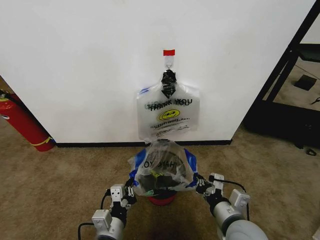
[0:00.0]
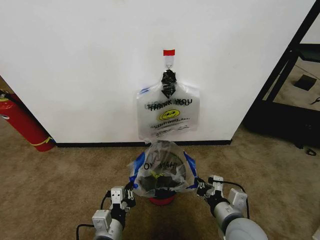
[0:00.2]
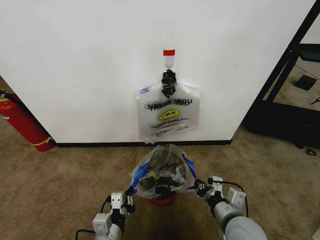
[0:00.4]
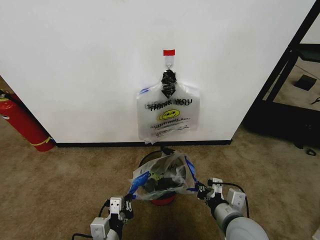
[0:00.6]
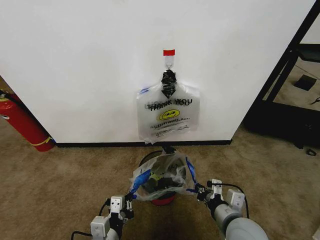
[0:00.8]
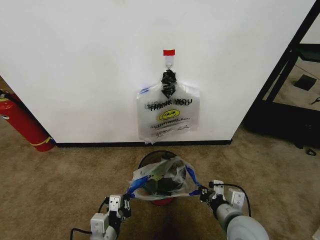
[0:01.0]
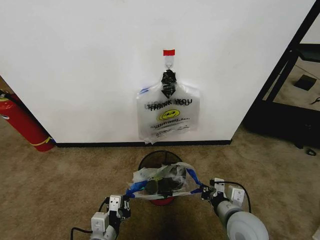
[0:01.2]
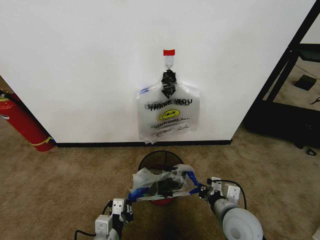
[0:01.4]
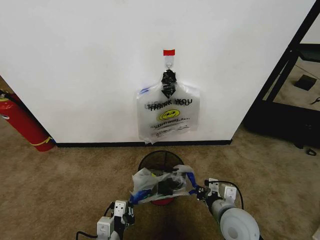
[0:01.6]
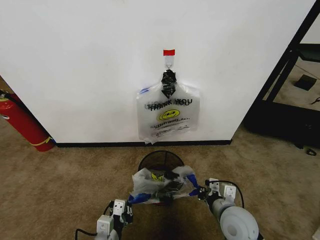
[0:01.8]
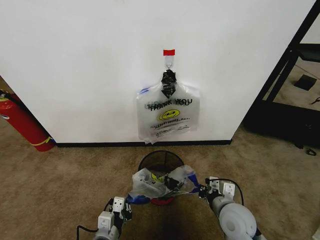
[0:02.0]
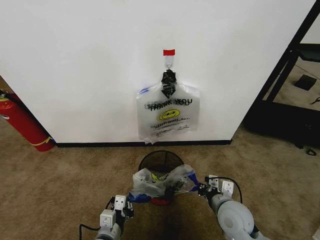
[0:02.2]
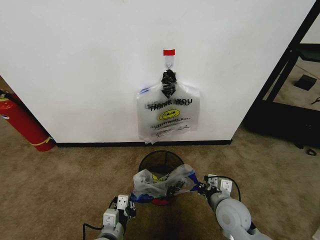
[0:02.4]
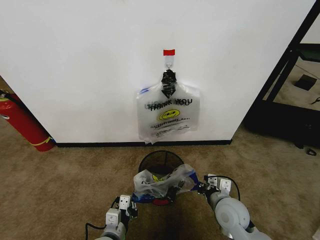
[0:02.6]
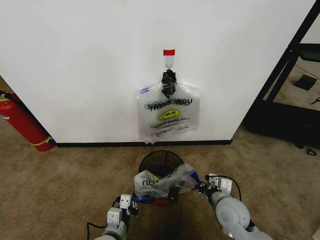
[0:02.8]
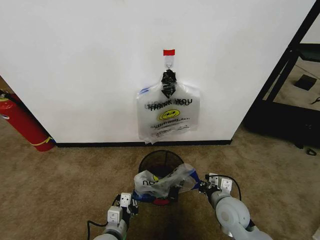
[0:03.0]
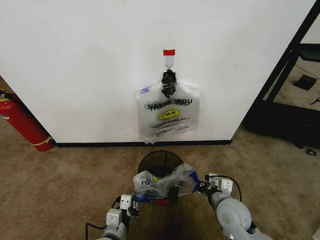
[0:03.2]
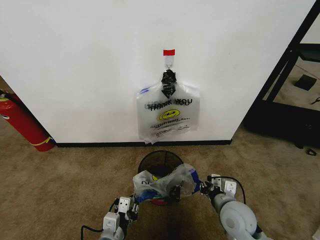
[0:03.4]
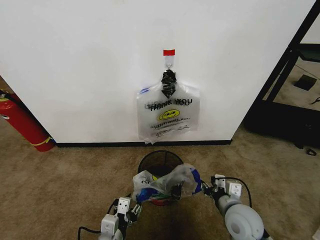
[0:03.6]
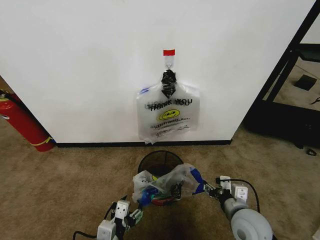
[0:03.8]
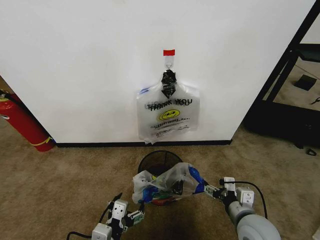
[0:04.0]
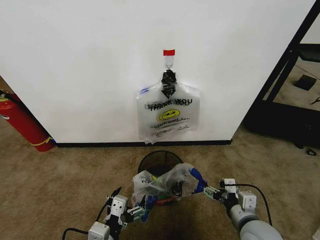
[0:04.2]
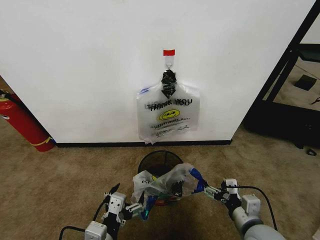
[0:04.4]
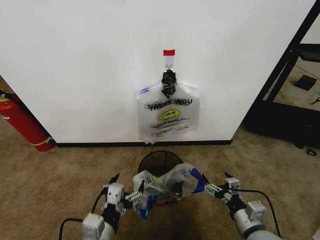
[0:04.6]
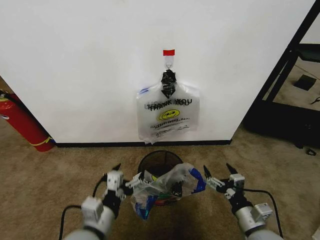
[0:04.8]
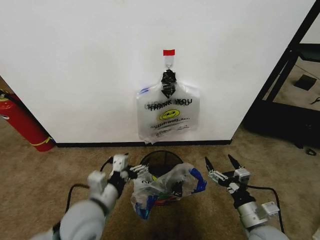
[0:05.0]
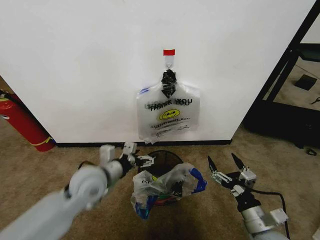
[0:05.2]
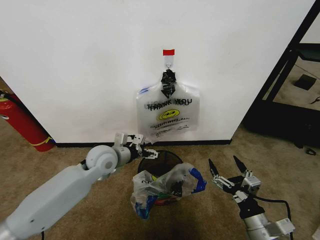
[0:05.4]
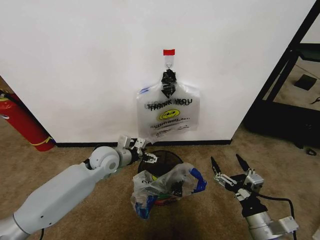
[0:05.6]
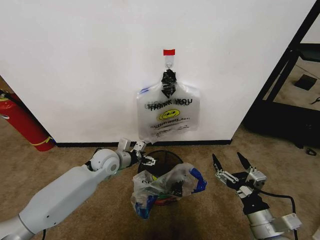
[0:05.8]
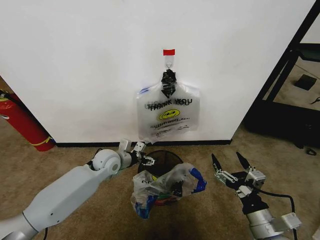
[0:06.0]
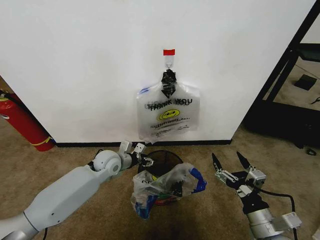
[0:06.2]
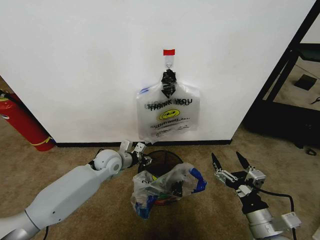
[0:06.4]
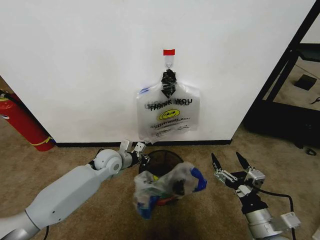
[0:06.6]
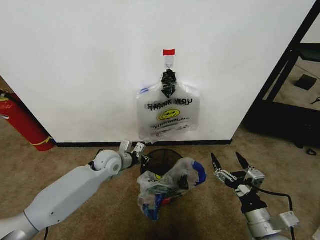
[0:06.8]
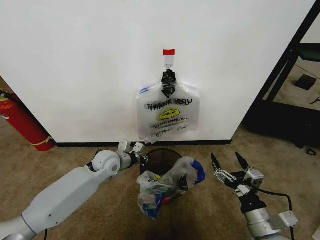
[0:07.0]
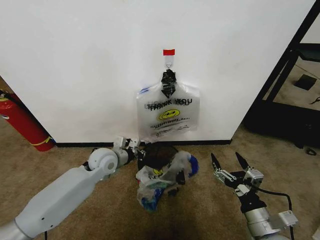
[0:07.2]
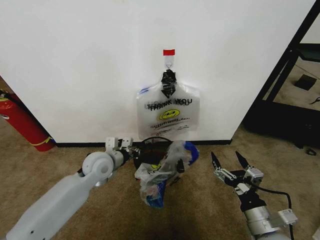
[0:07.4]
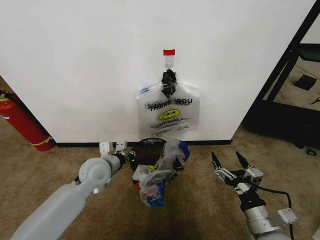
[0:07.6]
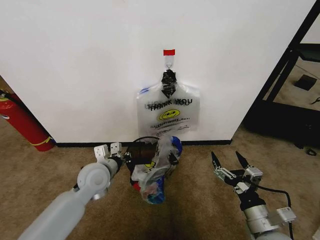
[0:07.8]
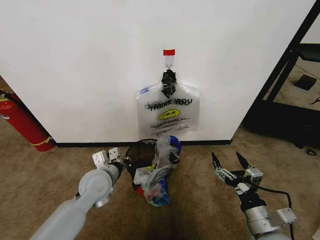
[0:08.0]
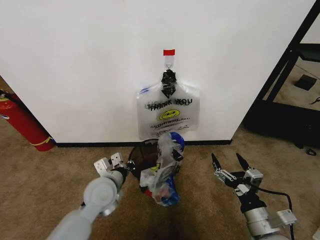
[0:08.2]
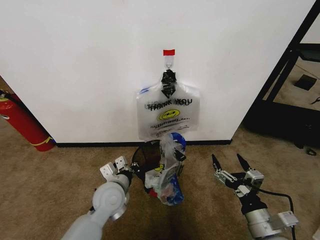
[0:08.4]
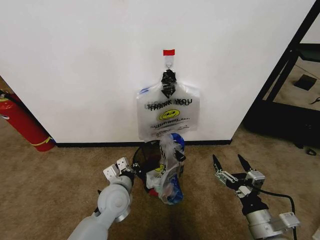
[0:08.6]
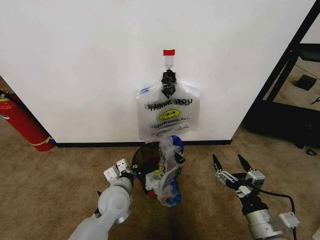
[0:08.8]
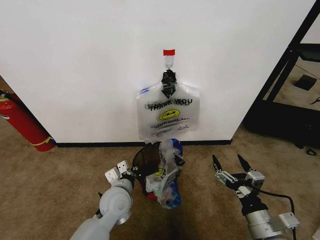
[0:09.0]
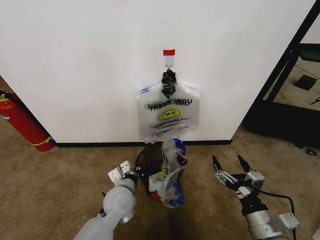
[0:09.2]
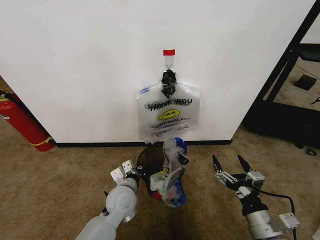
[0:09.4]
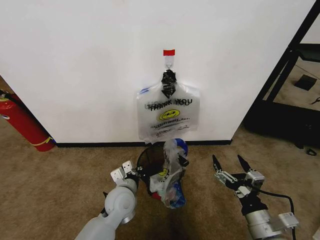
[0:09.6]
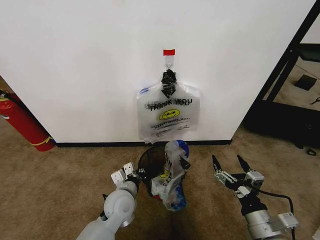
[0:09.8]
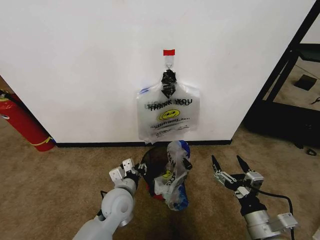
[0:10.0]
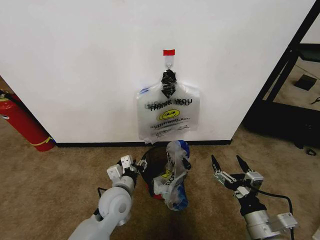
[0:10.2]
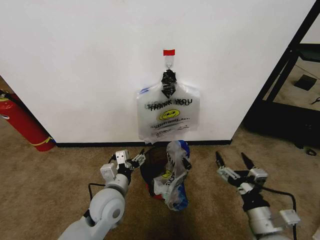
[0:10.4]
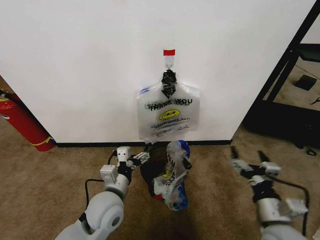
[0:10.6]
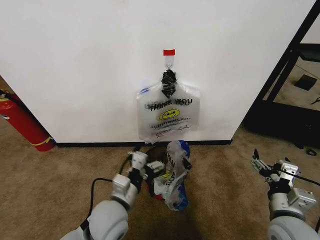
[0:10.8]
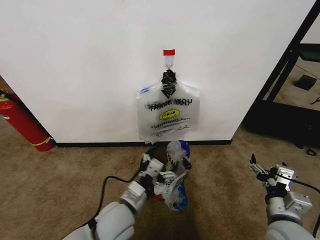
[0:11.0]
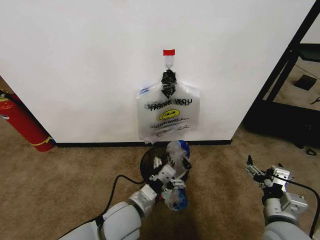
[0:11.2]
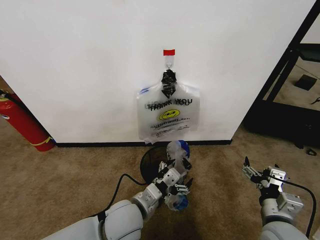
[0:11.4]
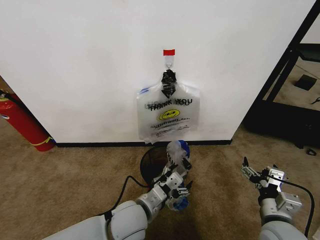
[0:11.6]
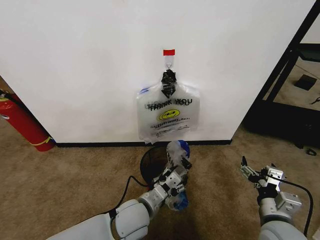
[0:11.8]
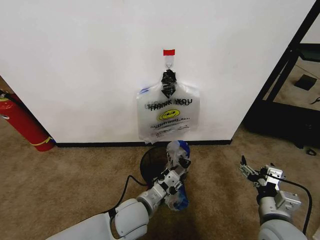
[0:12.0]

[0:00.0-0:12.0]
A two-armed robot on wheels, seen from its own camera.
Task of the whole recording: Pick up the garbage bag from the wall and place it over the trash bin.
0:01.6 to 0:03.0: The right gripper moves some 5 cm. Meanwhile the left gripper changes place by approximately 5 cm.
0:03.0 to 0:04.4: The right gripper travels backward by roughly 10 cm, and opens its fingers, while the left gripper moves upward and backward, about 15 cm, and opens its fingers.
0:04.4 to 0:06.0: The left gripper shifts approximately 30 cm forward.
0:06.0 to 0:07.6: The left gripper moves backward, about 5 cm, and closes up.
0:07.6 to 0:09.0: The left gripper moves backward, to the right and downward, about 10 cm.
0:09.0 to 0:10.4: The left gripper opens its fingers.
0:10.4 to 0:12.0: The left gripper shifts some 5 cm to the right, and closes.

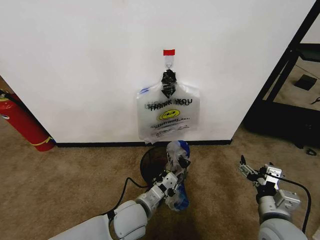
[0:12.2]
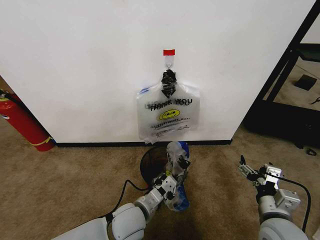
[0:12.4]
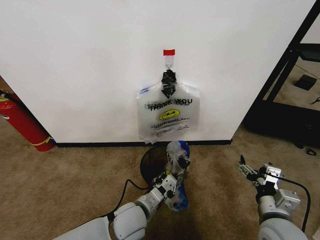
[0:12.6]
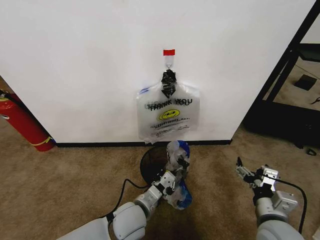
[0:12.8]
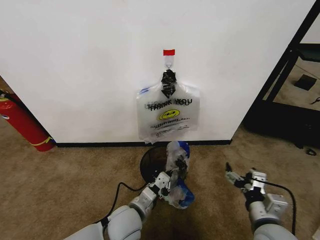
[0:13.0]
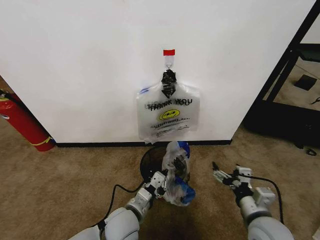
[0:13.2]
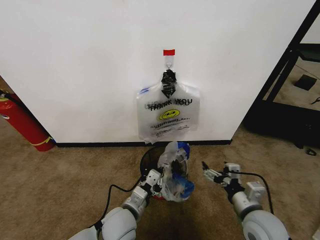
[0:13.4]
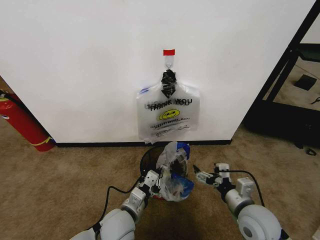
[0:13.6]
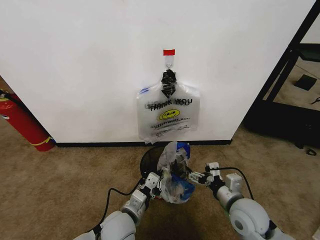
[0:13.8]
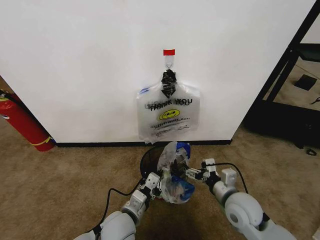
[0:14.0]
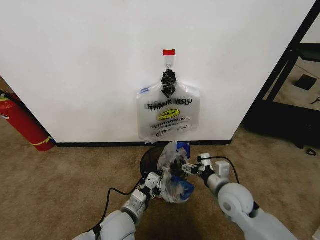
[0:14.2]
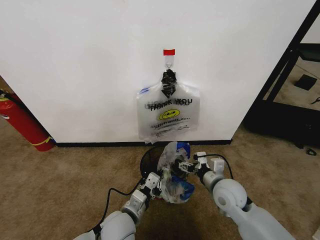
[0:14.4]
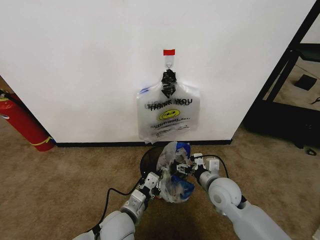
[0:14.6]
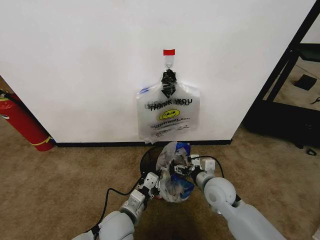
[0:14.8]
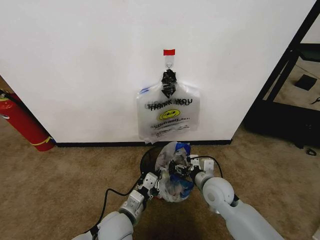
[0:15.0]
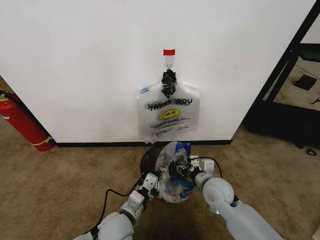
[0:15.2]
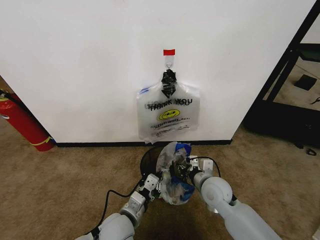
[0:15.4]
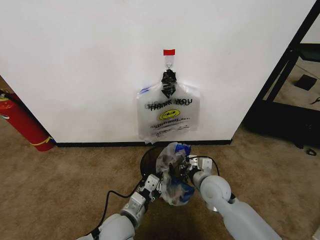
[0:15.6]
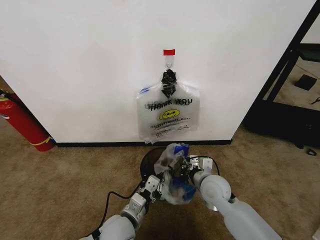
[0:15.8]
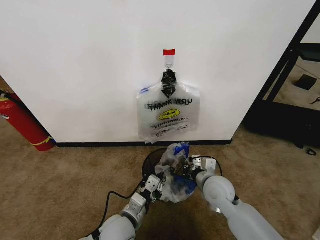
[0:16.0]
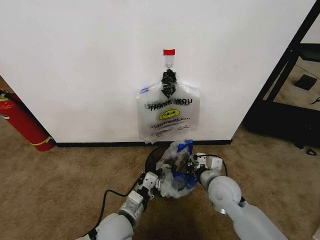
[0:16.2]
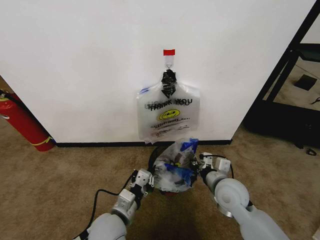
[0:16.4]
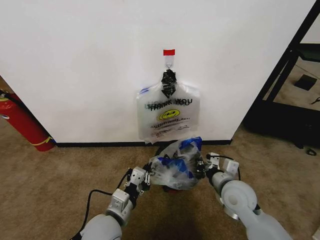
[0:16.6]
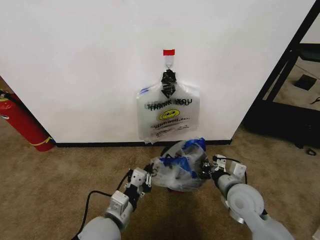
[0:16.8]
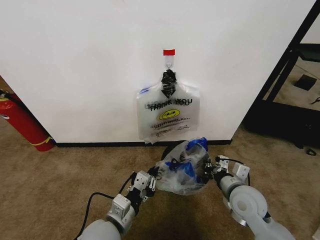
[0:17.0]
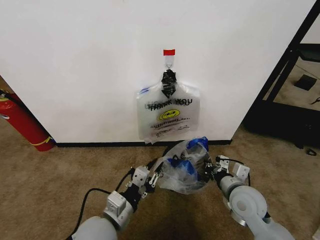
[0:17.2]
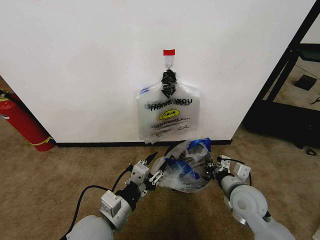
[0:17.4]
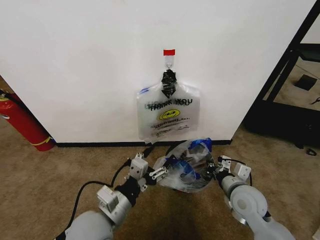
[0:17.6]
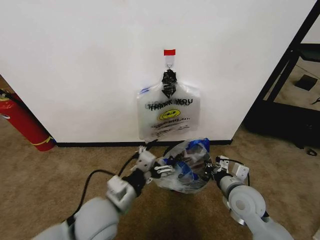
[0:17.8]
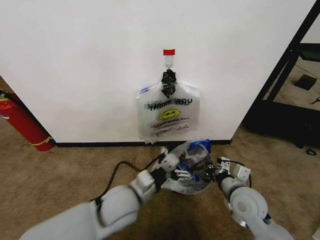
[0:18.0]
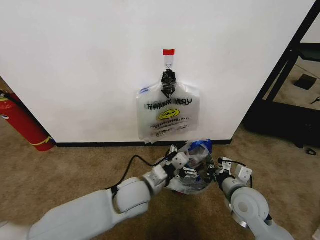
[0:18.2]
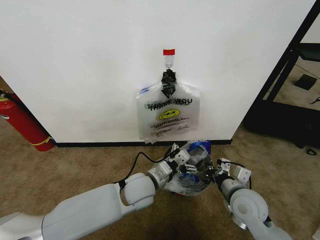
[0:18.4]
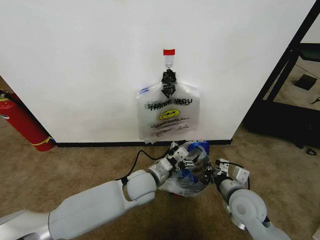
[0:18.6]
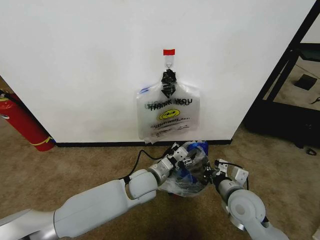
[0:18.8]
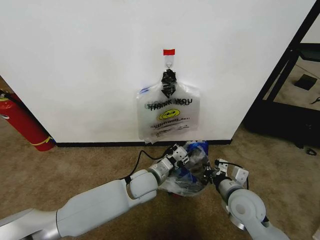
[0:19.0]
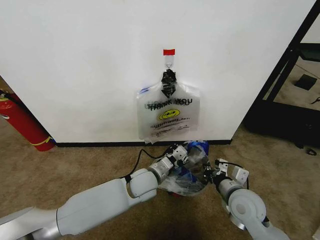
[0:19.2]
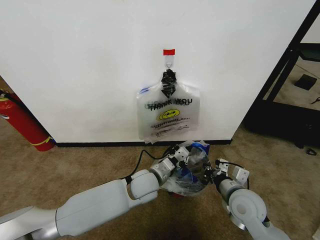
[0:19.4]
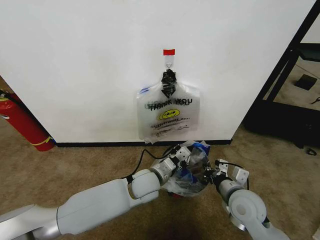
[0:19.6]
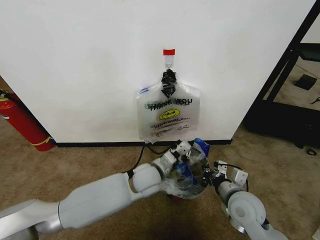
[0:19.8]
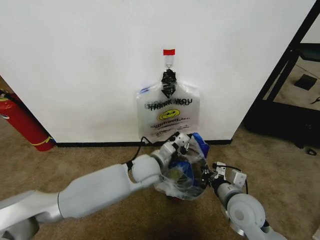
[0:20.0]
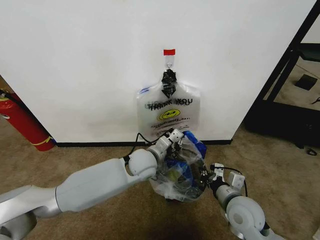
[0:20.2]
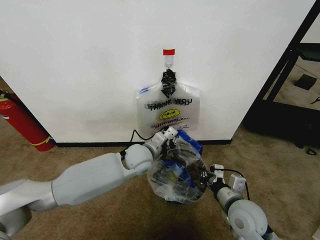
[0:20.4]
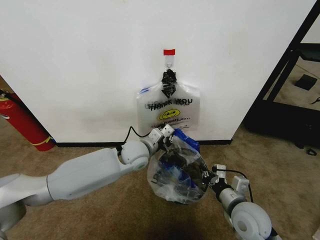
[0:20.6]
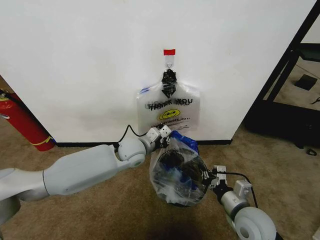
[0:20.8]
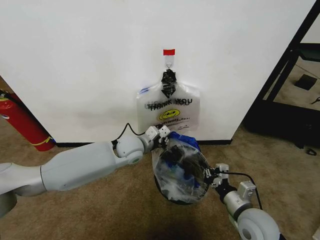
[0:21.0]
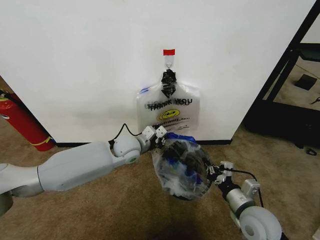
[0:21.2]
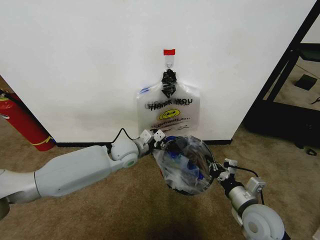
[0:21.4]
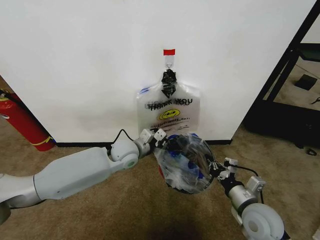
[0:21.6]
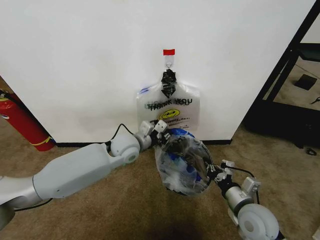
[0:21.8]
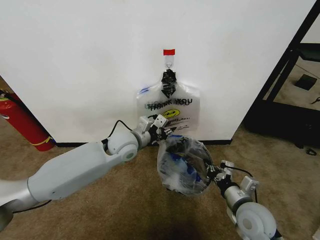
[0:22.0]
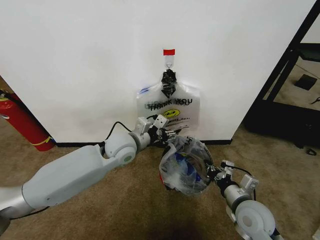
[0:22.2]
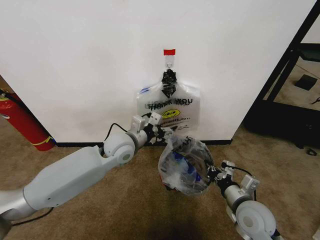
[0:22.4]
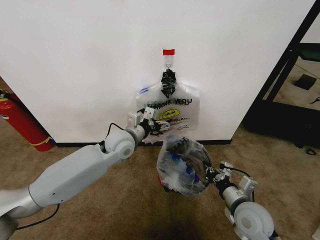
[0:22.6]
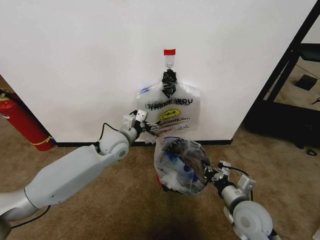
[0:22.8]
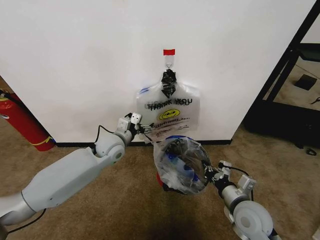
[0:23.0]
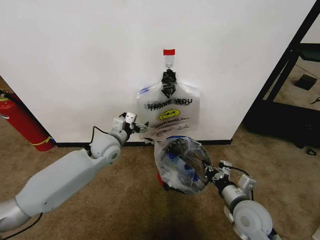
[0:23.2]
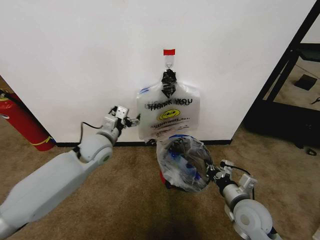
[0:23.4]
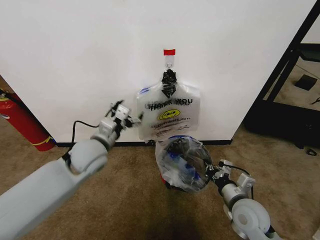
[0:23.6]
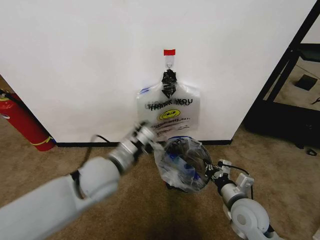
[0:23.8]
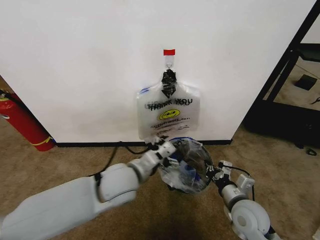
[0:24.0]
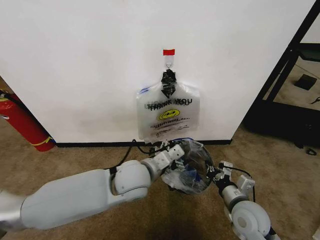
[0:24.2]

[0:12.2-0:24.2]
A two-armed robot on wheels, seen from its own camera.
Task of the whole recording: Pick up the garbage bag from the wall and place it over the trash bin.
0:12.2 to 0:13.8: The right gripper travels forward and to the left by roughly 10 cm.
0:13.8 to 0:15.2: The right gripper is displaced forward and to the left by approximately 10 cm, and closes its fingers.
0:15.2 to 0:16.6: The right gripper ends up about 5 cm from where it was, and closes up.
0:16.6 to 0:18.2: The left gripper moves forward and to the right, about 10 cm, and opens up.
0:18.2 to 0:19.8: The left gripper shifts about 5 cm forward, and closes up.
0:19.8 to 0:21.2: The left gripper goes approximately 10 cm forward and to the left.
0:21.2 to 0:22.6: The left gripper opens up.
0:22.6 to 0:24.2: The left gripper goes roughly 15 cm backward and to the right.
